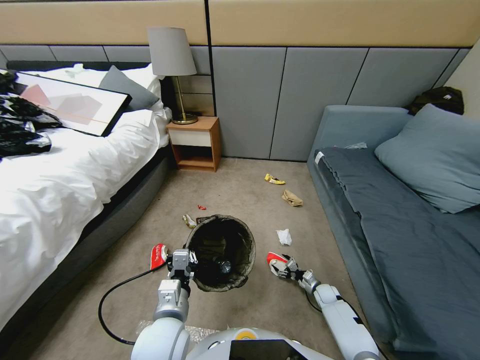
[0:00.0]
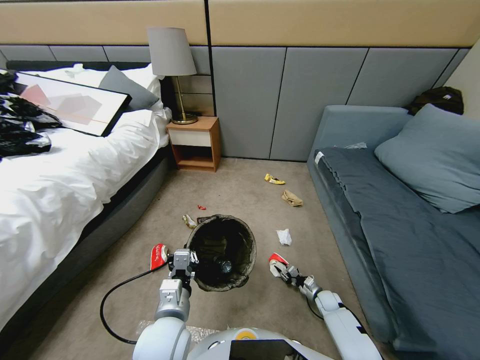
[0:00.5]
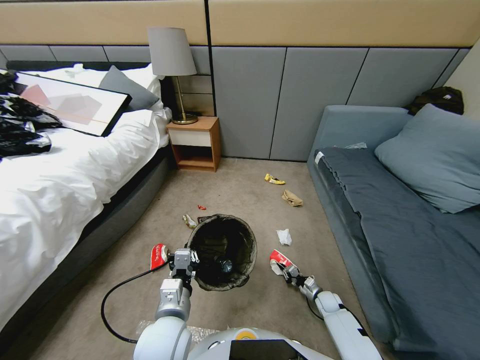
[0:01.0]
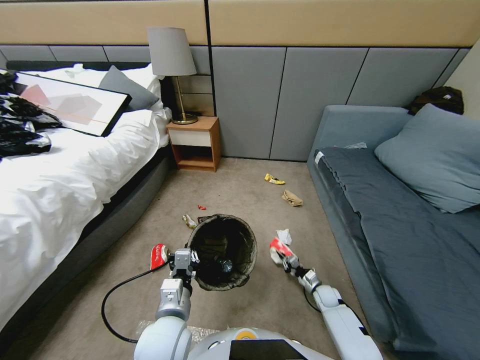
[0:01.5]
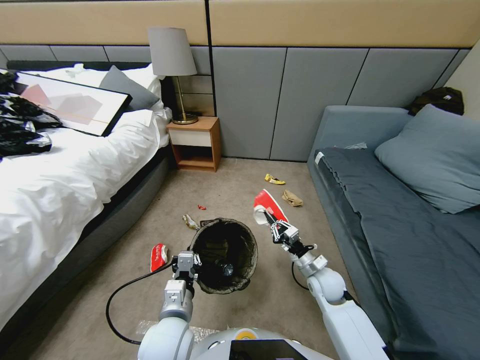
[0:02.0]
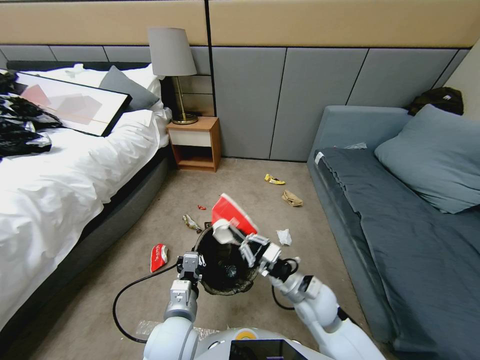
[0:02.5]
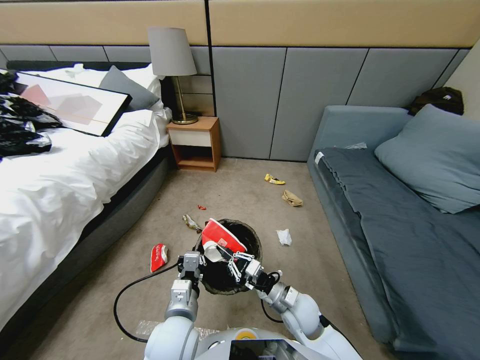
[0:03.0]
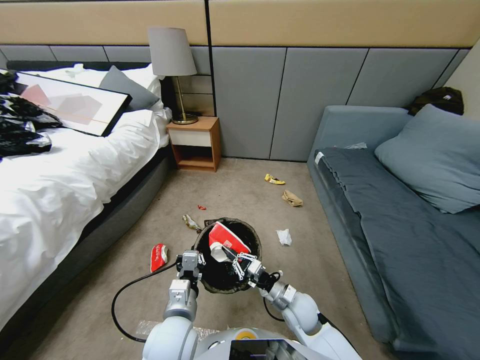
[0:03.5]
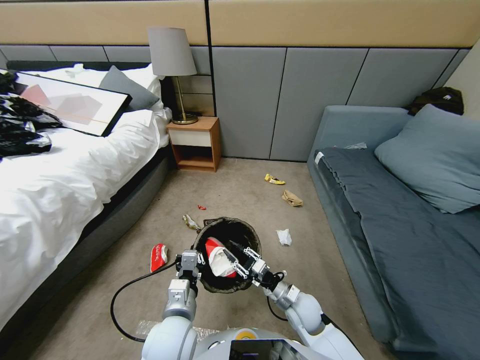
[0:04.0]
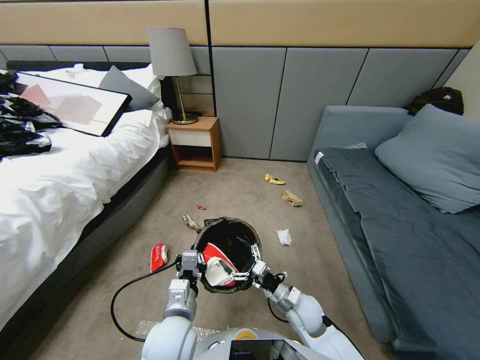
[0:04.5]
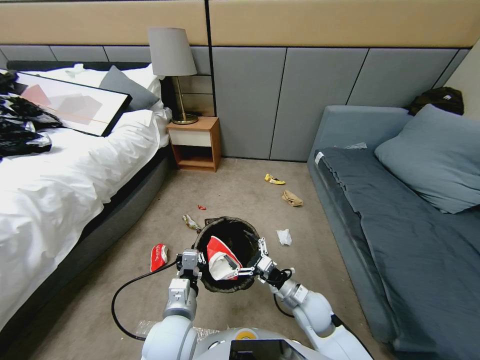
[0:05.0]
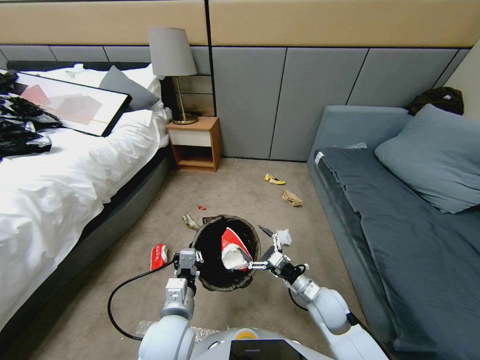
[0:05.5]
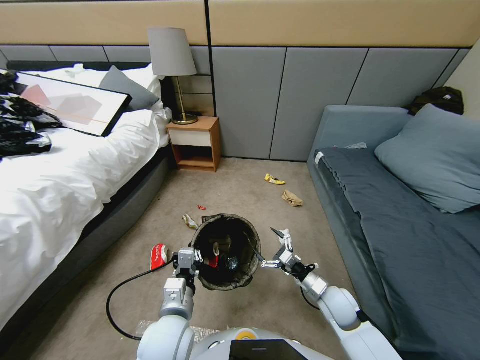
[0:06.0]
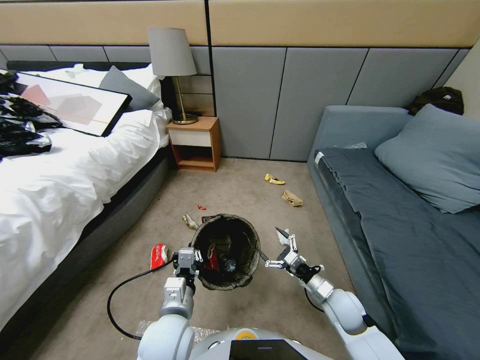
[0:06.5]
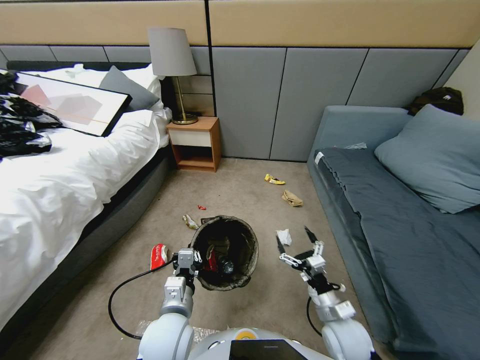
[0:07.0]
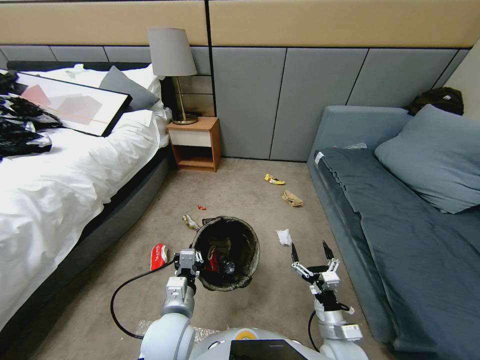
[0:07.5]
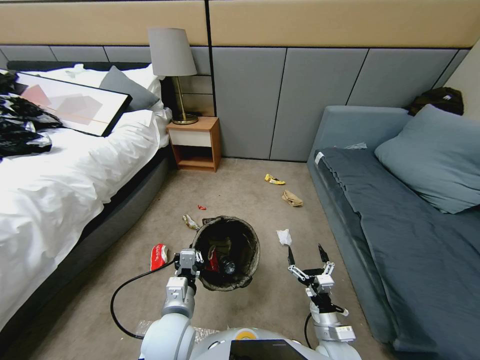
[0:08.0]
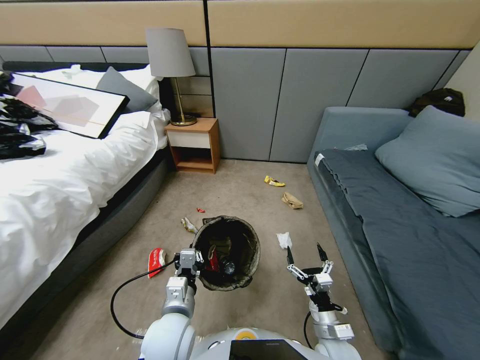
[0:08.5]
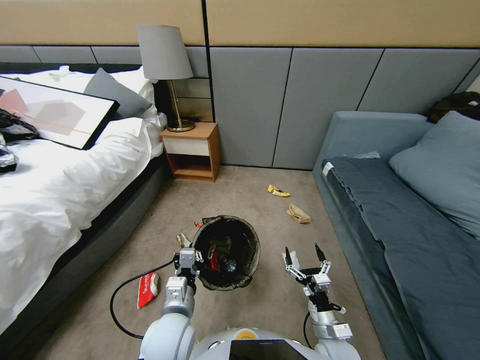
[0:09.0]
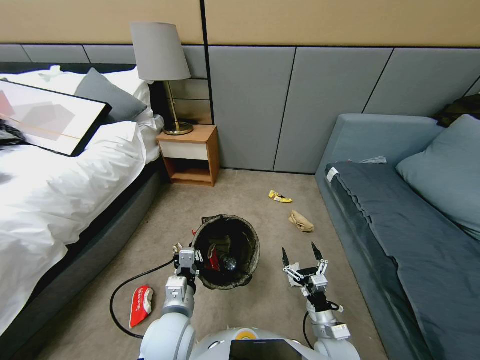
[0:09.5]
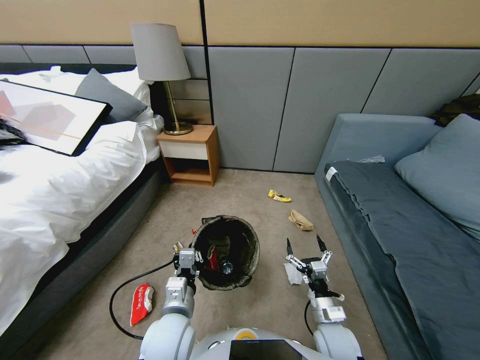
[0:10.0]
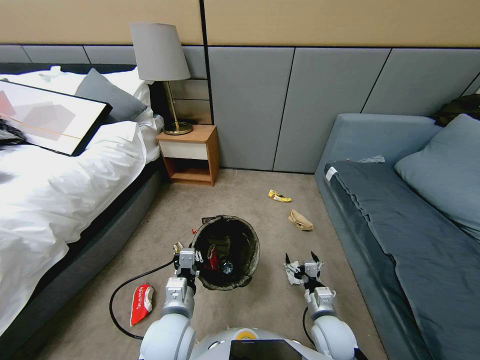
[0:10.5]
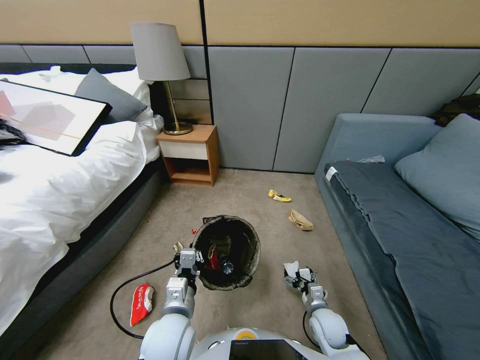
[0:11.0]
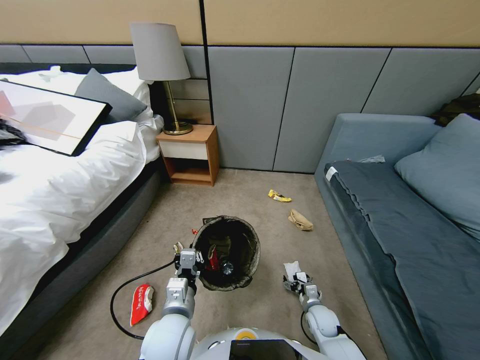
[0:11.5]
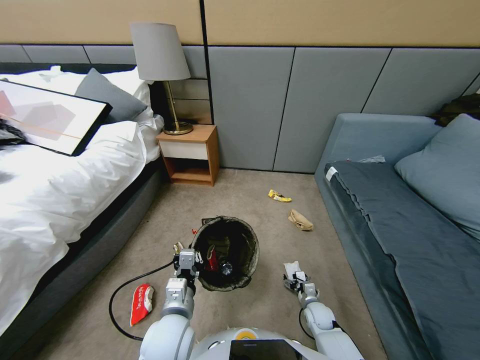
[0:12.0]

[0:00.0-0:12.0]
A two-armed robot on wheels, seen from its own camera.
Task of the whole recording: Pick up the trash bin, then pick up the garbage from the floor and place it into the trash bin.
0:00.0 to 0:02.0: The right gripper shifts approximately 30 cm upward and to the left, and closes its fingers.
0:02.0 to 0:04.0: The right gripper shifts about 10 cm downward and to the left, and opens up.
0:04.0 to 0:06.0: The right gripper is displaced to the right by roughly 10 cm, and opens.
0:06.0 to 0:08.0: The right gripper shifts approximately 10 cm backward.
0:10.0 to 0:12.0: The right gripper goes roughly 20 cm downward and forward.

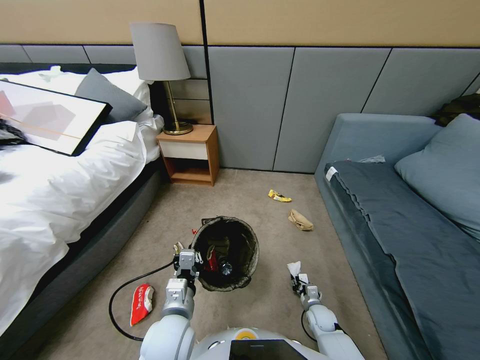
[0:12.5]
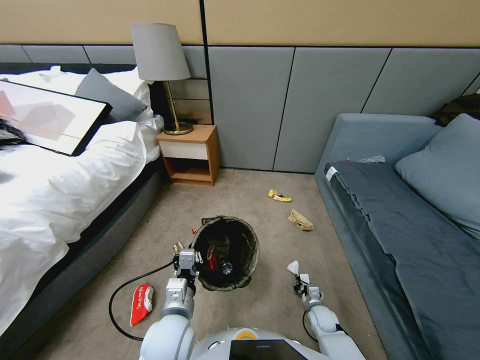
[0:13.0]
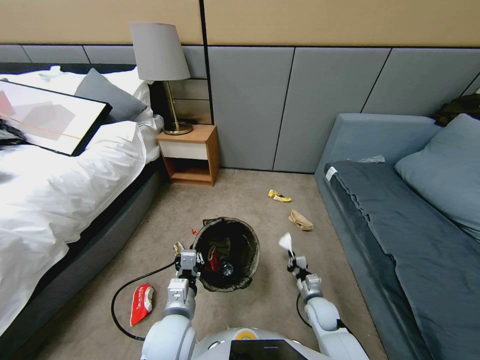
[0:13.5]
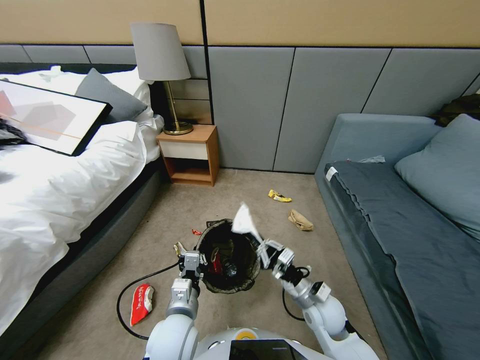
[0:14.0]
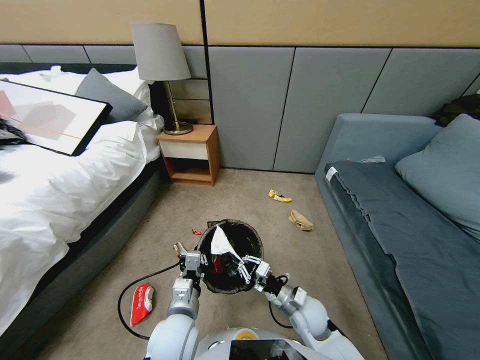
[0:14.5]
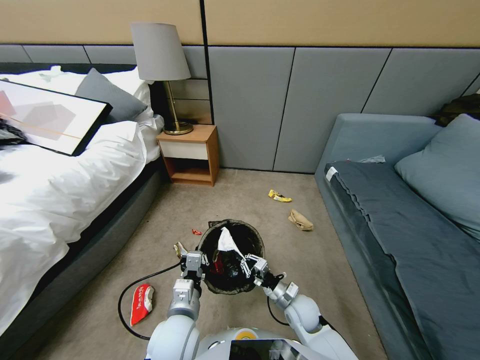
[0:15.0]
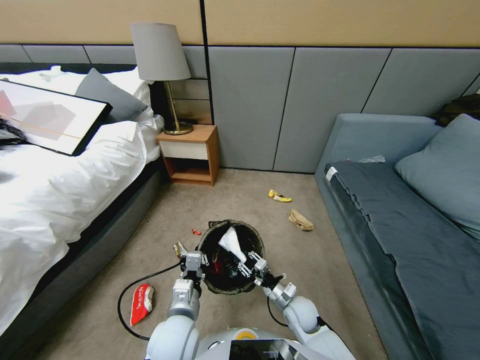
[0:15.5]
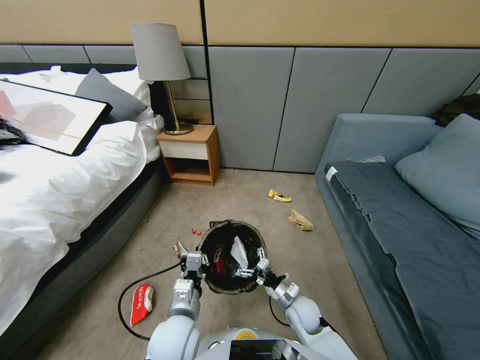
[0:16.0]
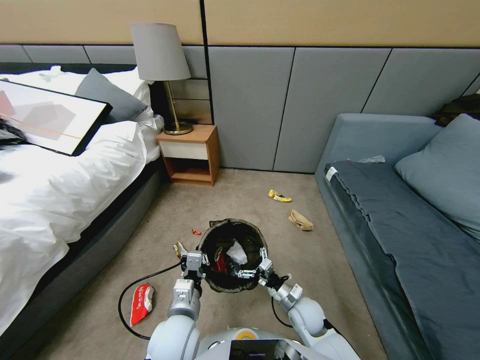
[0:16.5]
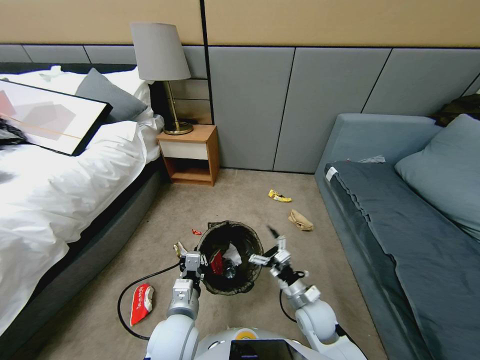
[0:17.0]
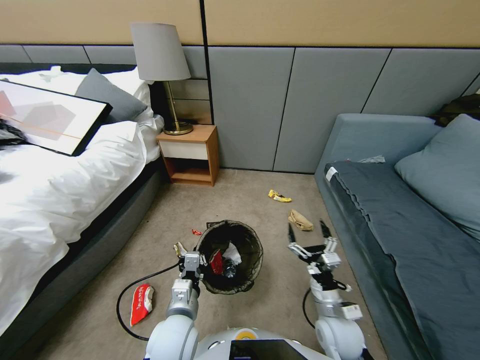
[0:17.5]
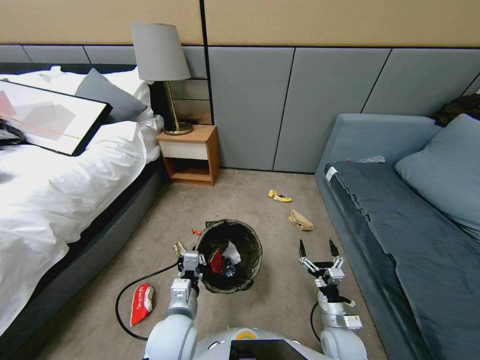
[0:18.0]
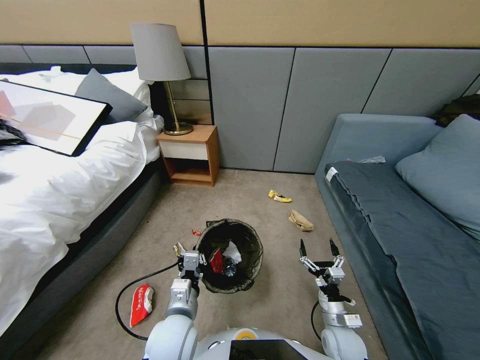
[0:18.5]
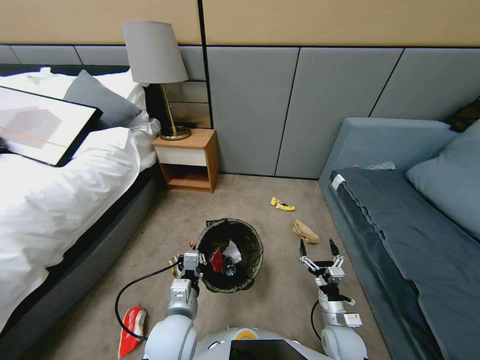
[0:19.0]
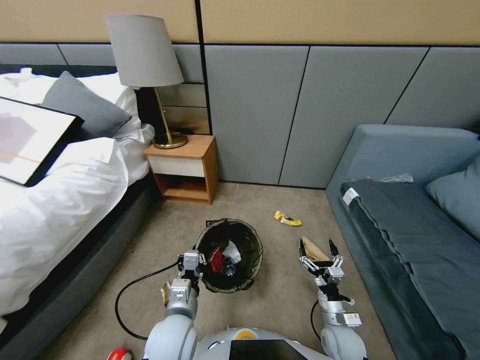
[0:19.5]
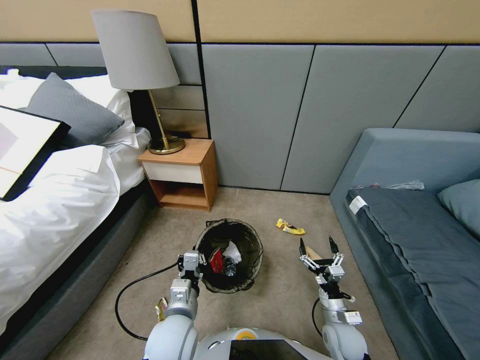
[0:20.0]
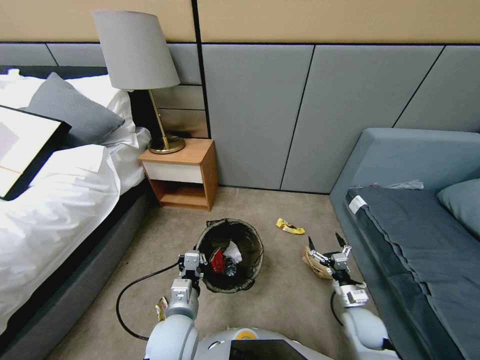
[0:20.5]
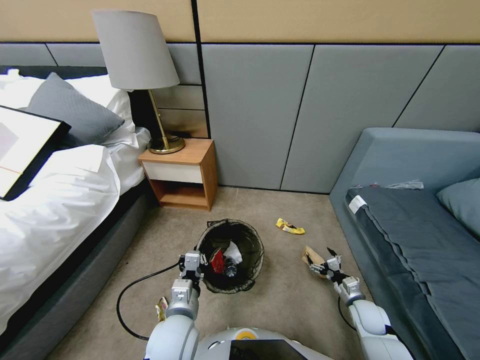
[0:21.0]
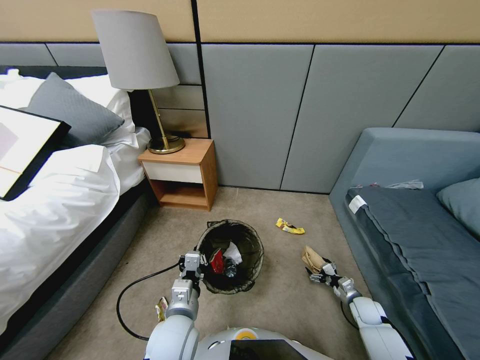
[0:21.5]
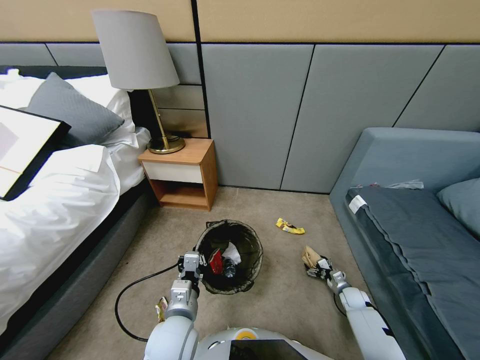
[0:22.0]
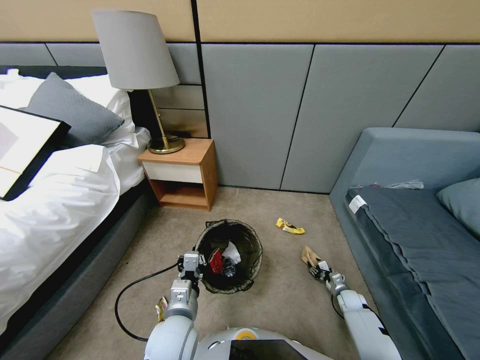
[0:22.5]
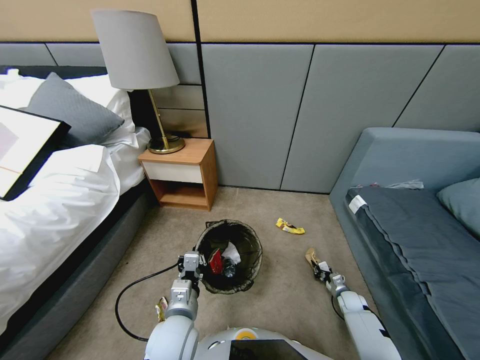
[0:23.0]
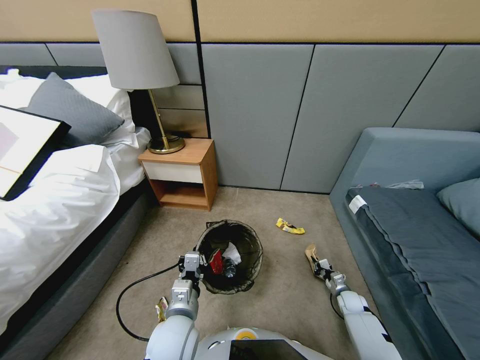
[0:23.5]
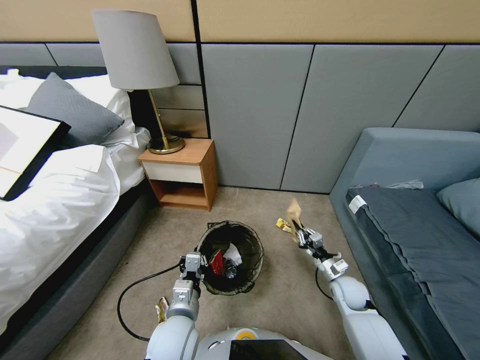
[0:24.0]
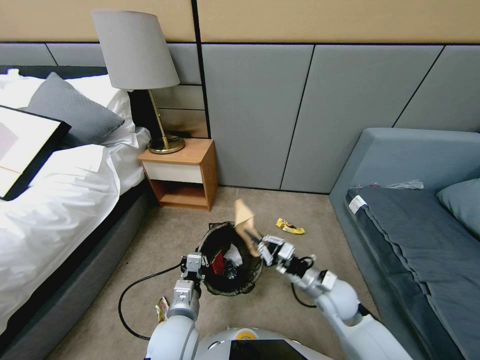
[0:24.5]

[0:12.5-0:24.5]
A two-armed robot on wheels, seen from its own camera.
Task of the whole recording: Pick up the trash bin, then pick up the garbage from the floor and place it into the trash bin.
0:12.5 to 0:14.5: The right gripper is displaced upward and to the left by some 20 cm.
0:14.5 to 0:16.5: The right gripper opens its fingers.
0:16.5 to 0:18.5: The right gripper shifts roughly 10 cm to the right and backward.
0:18.5 to 0:20.5: The right gripper goes about 10 cm to the right.
0:20.5 to 0:22.5: The right gripper goes some 20 cm downward, forward and to the right, and closes its fingers.
0:22.5 to 0:24.5: The right gripper goes approximately 35 cm upward and to the left, and closes its fingers.

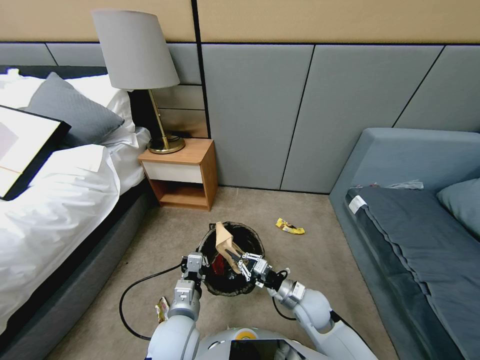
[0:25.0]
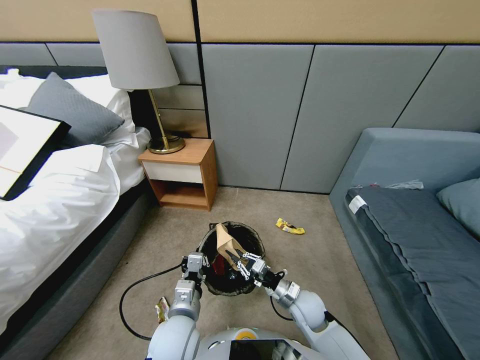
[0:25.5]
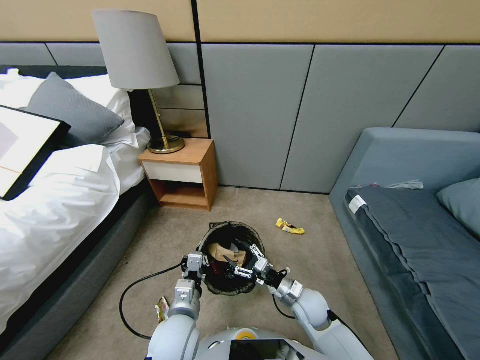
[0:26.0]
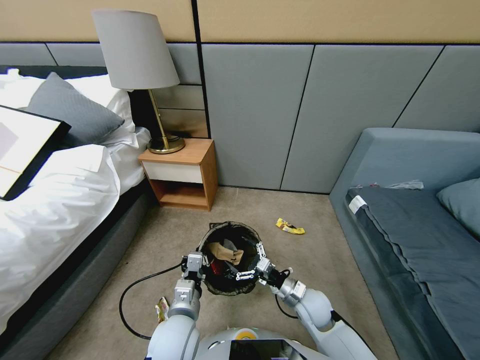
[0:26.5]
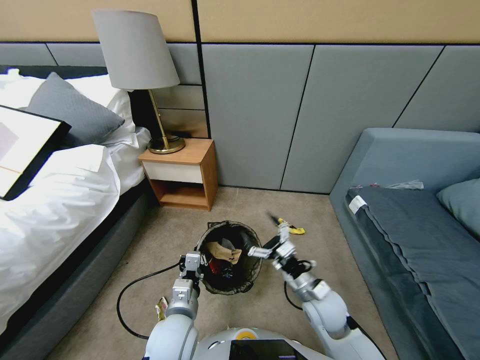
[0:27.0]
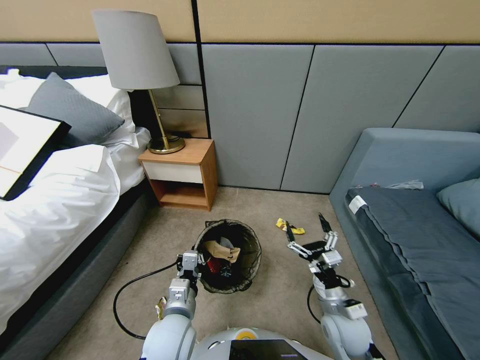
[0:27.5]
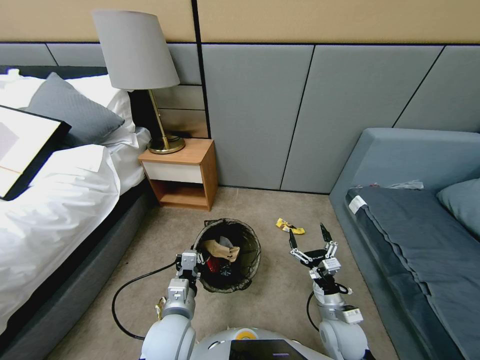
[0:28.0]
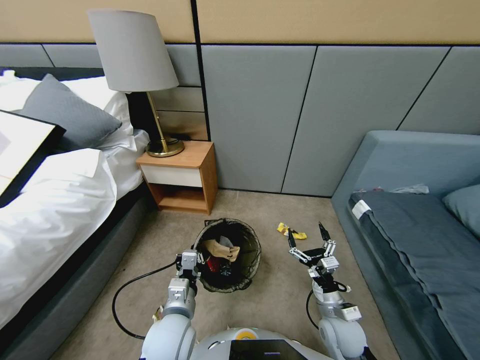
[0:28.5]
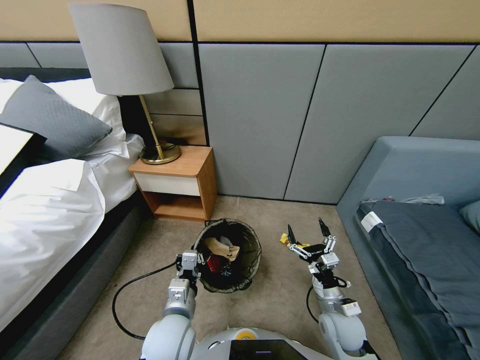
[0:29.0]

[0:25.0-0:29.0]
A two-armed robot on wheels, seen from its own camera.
Task of the whole recording: Pick up the trash bin, then pick up the garbage from the floor and place it into the trash bin.
0:25.0 to 0:27.0: The right gripper travels upward by some 5 cm, and opens its fingers.
0:27.0 to 0:29.0: The right gripper shifts approximately 10 cm downward and to the right.
